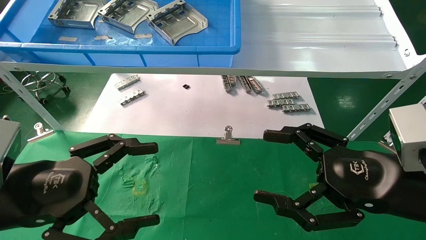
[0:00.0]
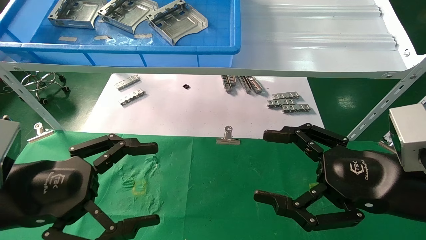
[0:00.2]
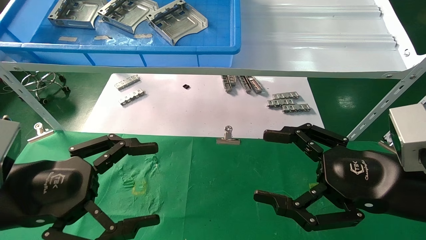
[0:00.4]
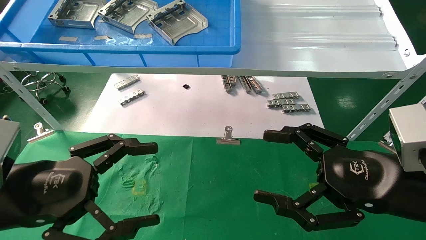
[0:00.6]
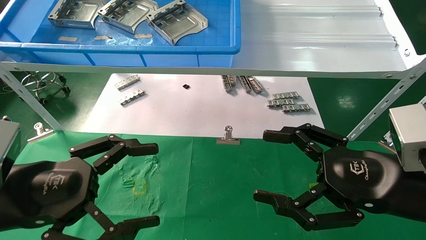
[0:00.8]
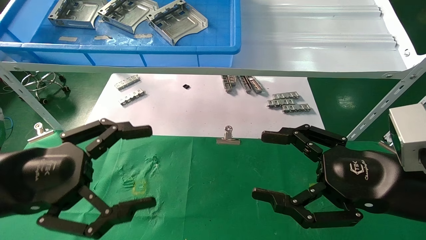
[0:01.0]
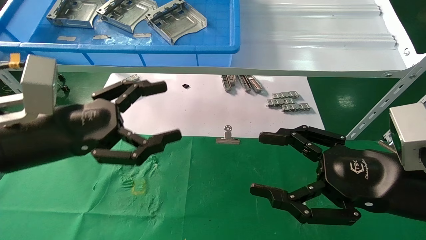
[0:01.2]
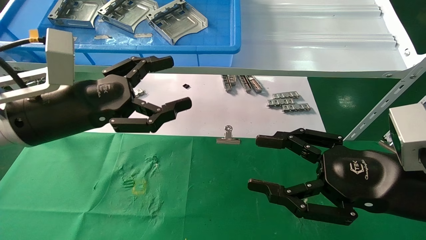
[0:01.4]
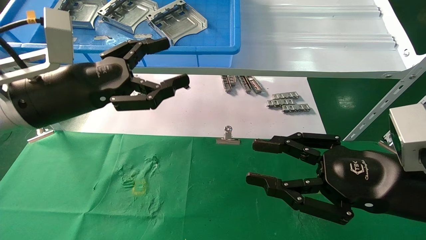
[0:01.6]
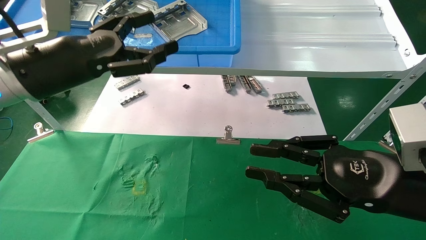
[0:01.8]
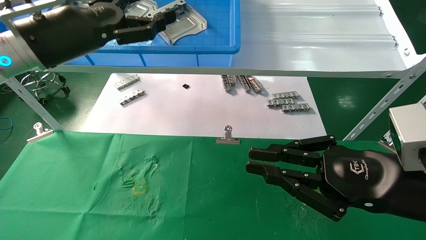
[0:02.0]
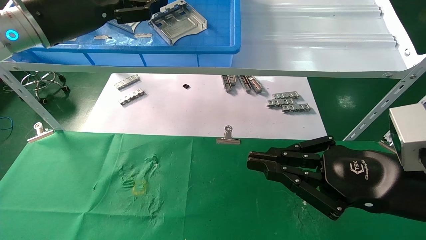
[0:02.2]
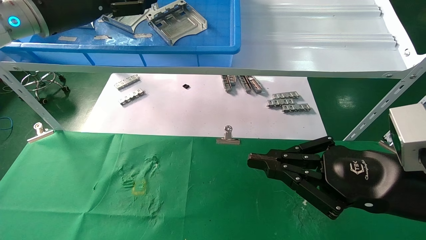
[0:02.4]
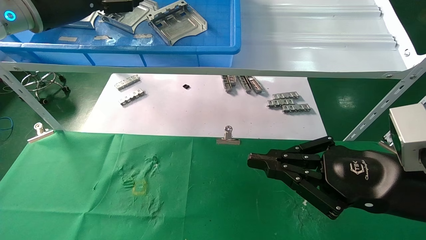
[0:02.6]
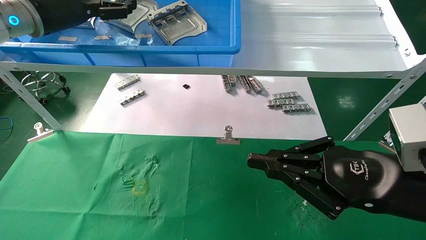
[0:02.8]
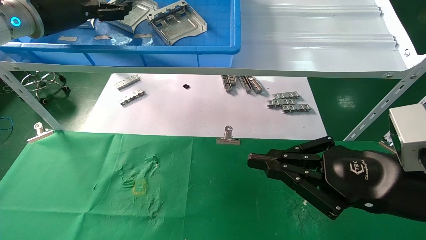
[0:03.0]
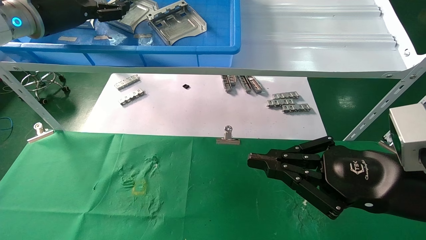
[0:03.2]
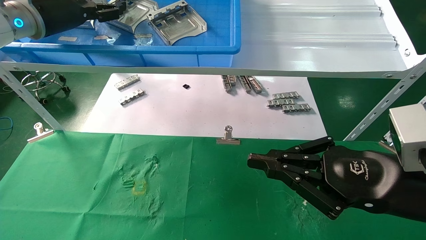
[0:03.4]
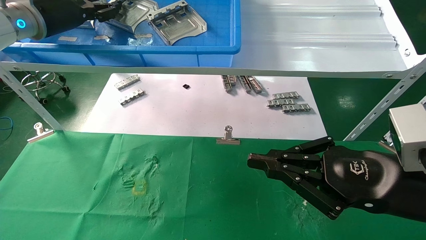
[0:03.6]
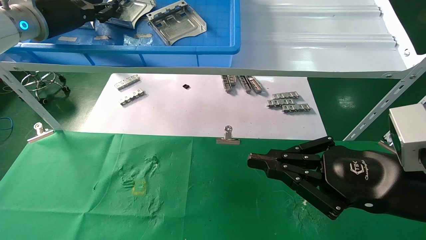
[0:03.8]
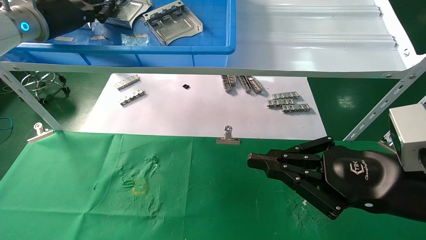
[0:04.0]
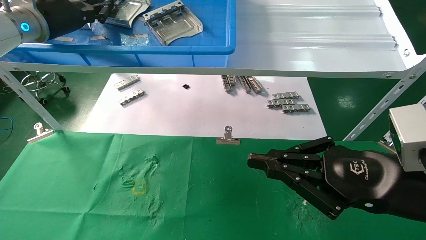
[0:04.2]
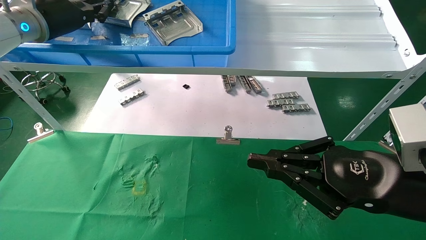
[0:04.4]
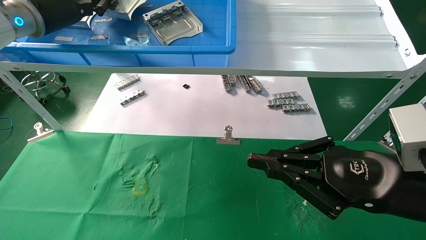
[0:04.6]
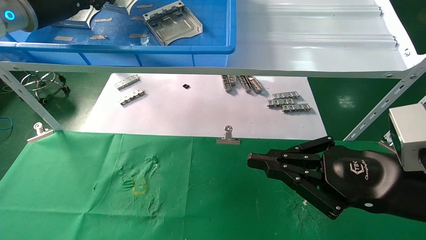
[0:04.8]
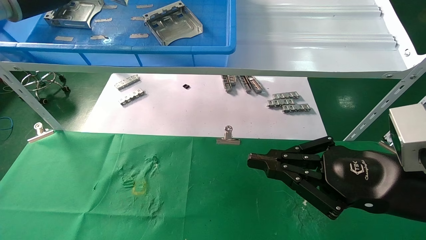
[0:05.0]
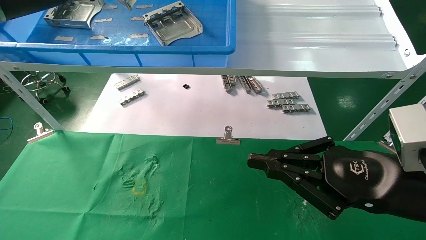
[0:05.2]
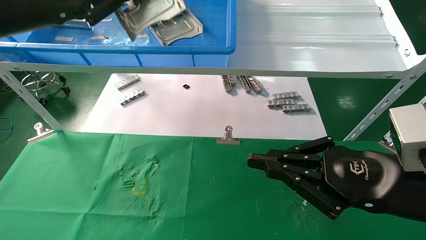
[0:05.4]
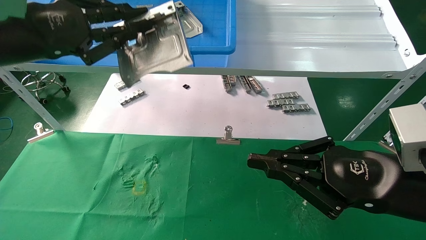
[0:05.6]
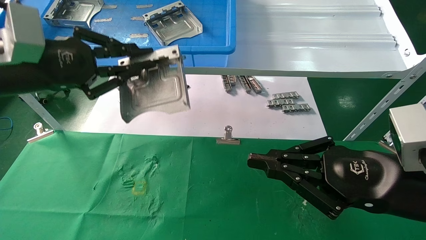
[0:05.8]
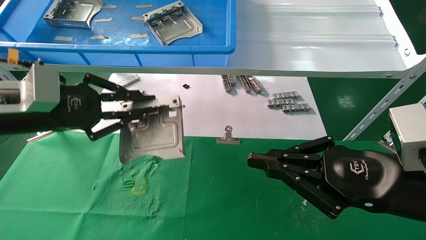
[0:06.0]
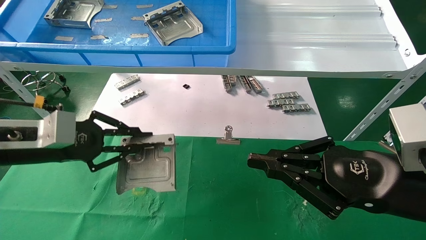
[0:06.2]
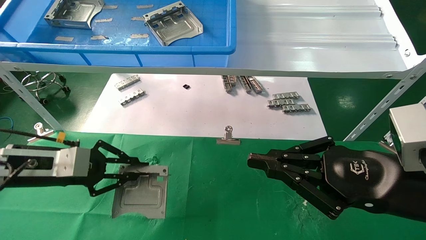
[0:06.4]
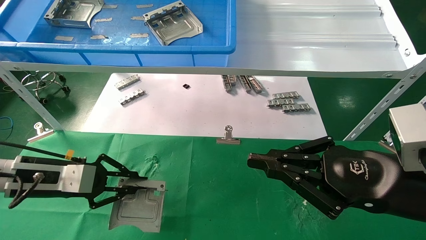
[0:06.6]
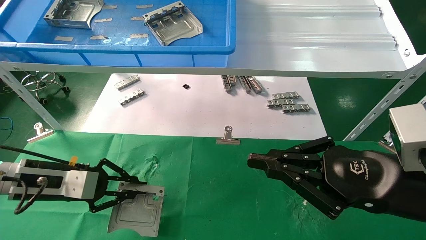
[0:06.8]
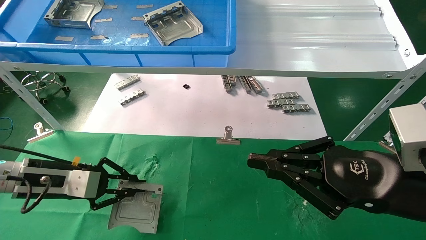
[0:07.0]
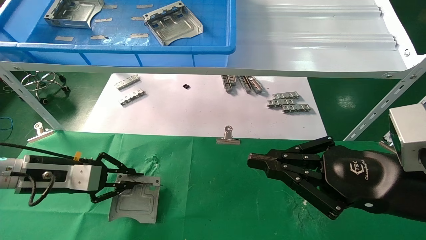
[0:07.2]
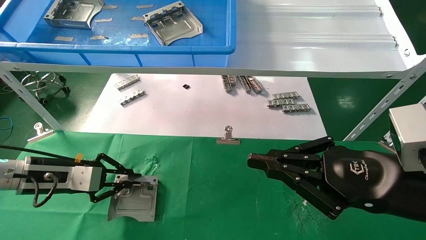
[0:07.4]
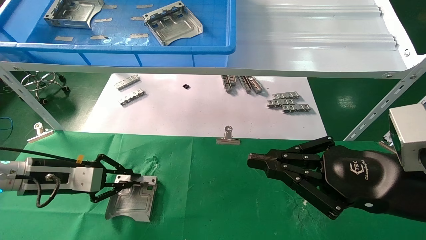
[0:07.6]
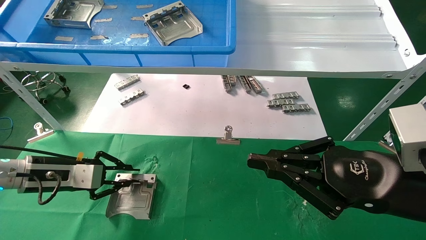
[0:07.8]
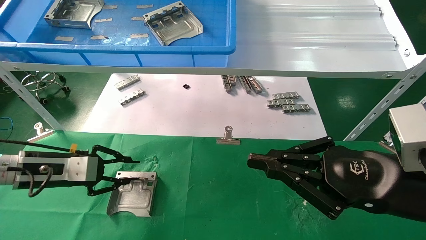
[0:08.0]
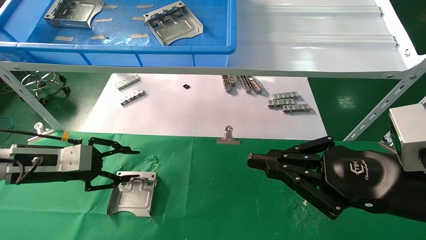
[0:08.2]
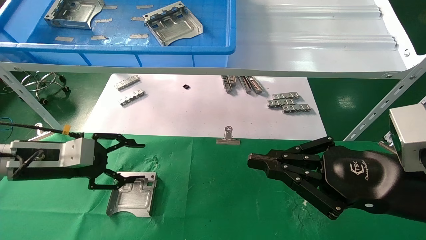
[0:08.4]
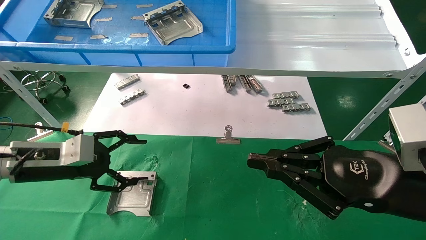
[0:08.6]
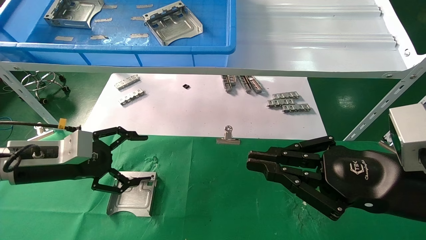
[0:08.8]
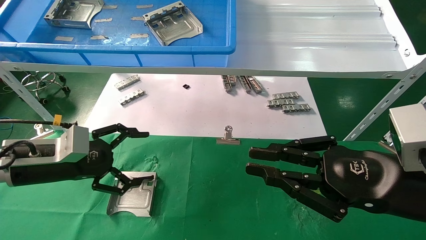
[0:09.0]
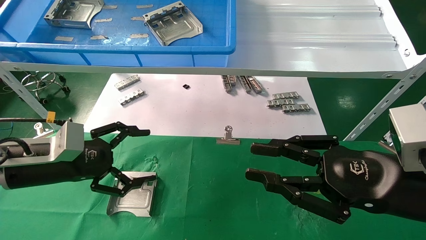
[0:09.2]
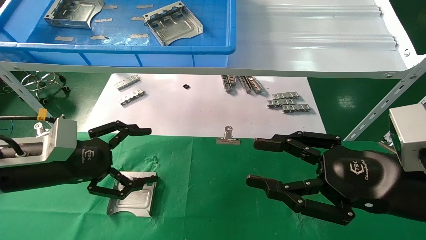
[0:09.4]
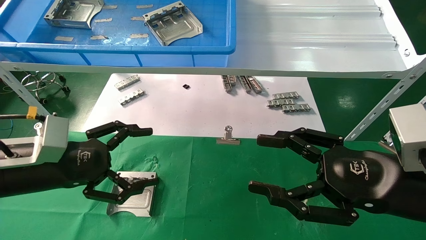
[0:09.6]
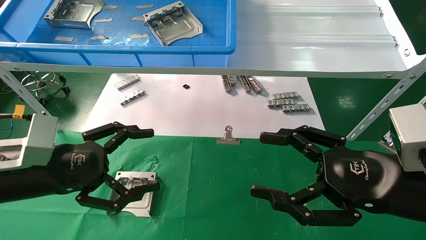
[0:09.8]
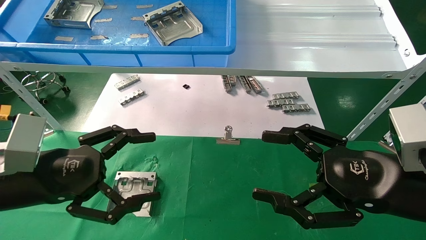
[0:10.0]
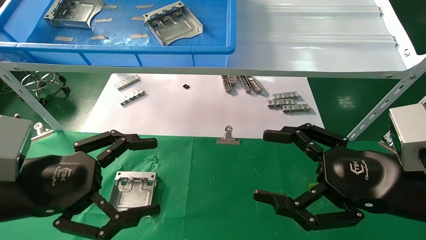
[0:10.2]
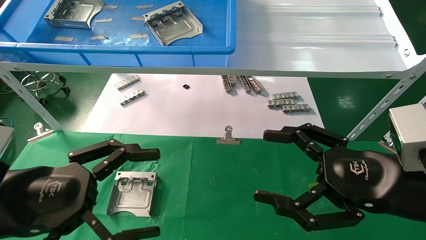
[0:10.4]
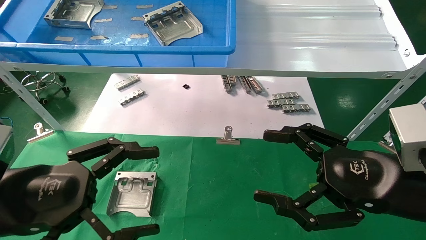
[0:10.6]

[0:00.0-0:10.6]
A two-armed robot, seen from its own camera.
Task of the whole recording: use the mechanical arm to pick up the parts and place them on the table.
Step, 0:01.2 to 0:04.2: Pick up the hard drive bracket from the feeding area.
Step, 0:04.4 to 0:07.8: Place the hard drive bracket into the box.
0:00.0 to 0:01.6: The right gripper closes its fingers, while the left gripper shifts approximately 15 cm forward and upward.
0:01.6 to 0:03.0: The left gripper shifts roughly 20 cm upward, forward and to the left; the right gripper closes up.
0:03.0 to 0:04.6: The left gripper closes up.
0:04.6 to 0:06.0: The left gripper goes some 20 cm downward and backward.
0:06.0 to 0:07.6: The left gripper is displaced downward by some 15 cm.
0:07.6 to 0:09.0: The left gripper ends up approximately 5 cm from where it was, and opens up.
0:09.0 to 0:10.6: The left gripper goes approximately 15 cm backward. The right gripper opens.
